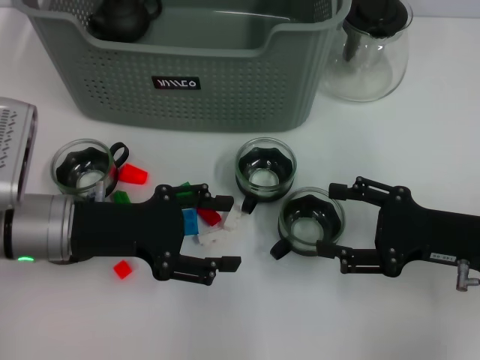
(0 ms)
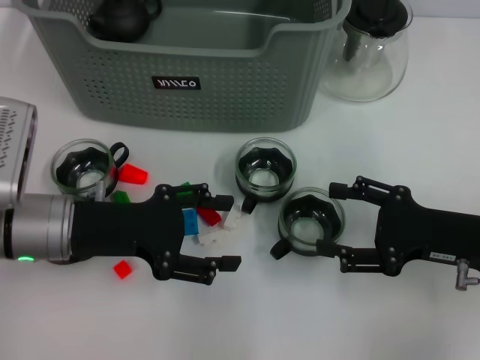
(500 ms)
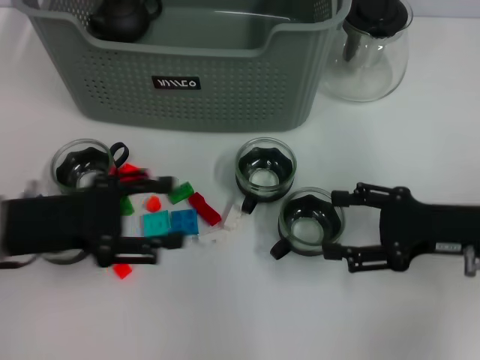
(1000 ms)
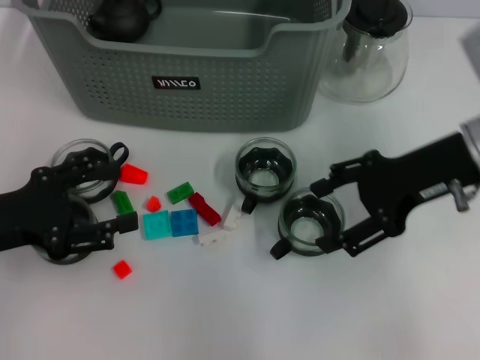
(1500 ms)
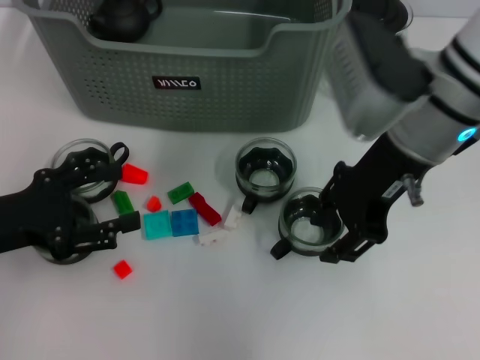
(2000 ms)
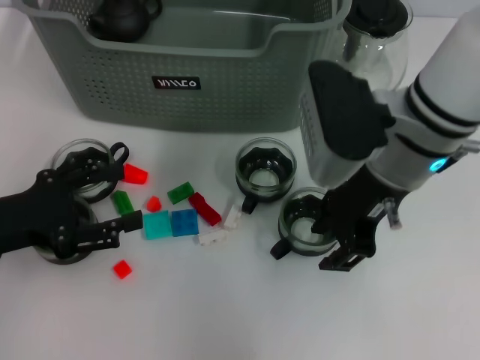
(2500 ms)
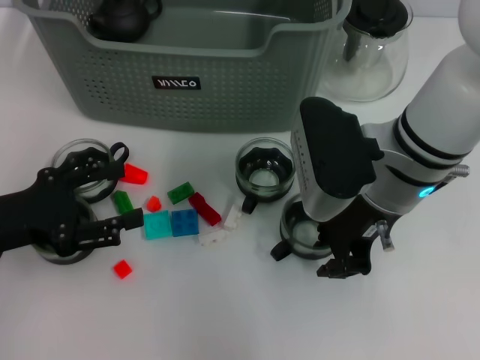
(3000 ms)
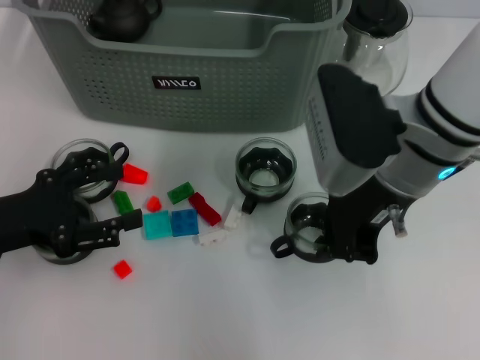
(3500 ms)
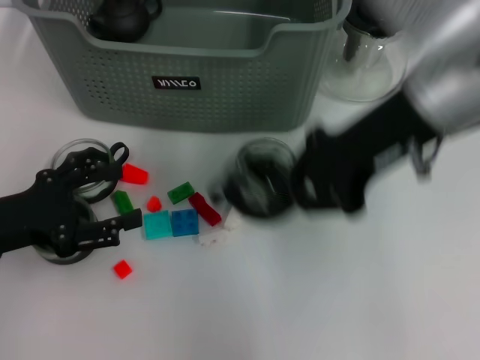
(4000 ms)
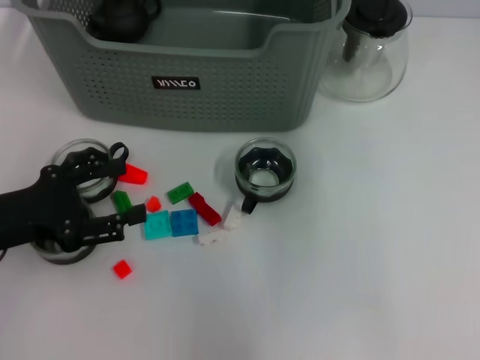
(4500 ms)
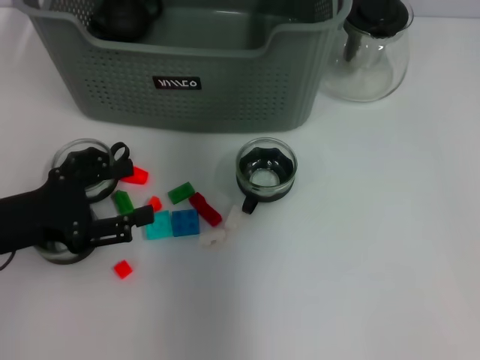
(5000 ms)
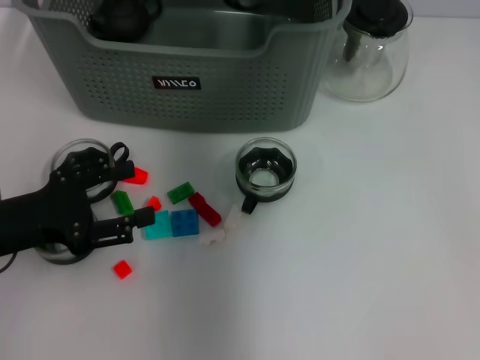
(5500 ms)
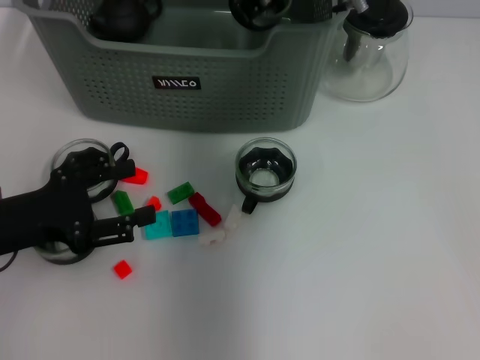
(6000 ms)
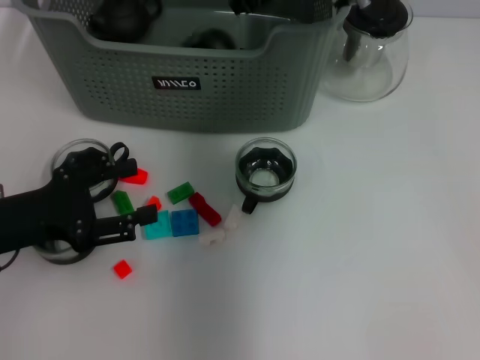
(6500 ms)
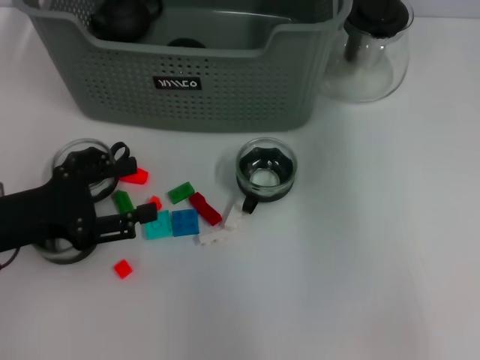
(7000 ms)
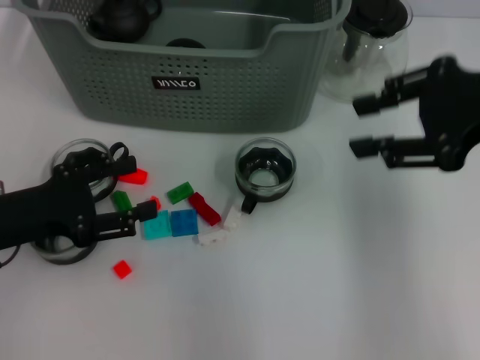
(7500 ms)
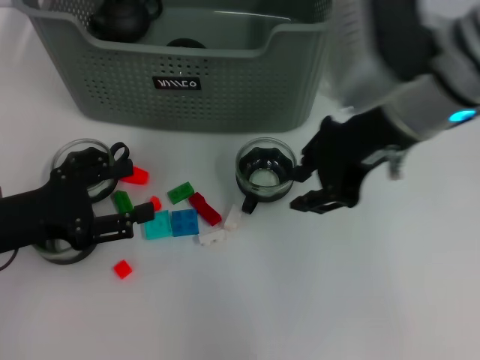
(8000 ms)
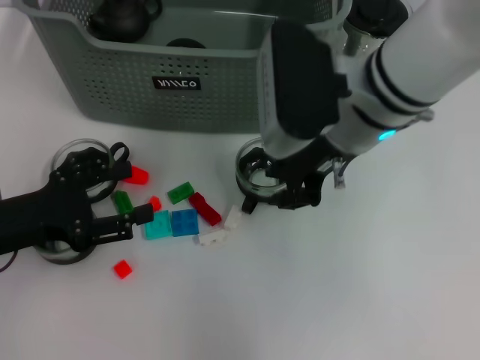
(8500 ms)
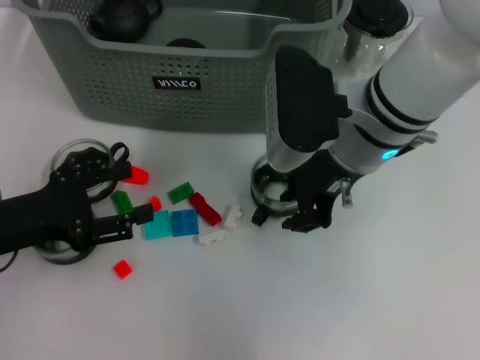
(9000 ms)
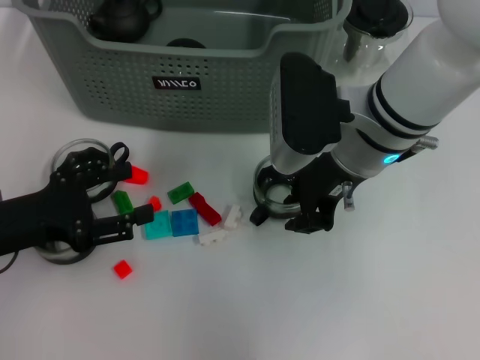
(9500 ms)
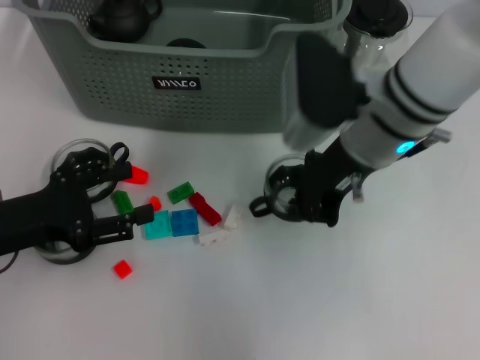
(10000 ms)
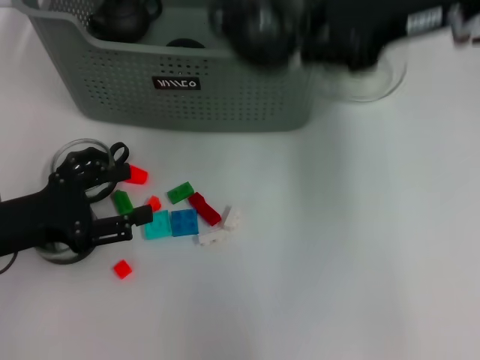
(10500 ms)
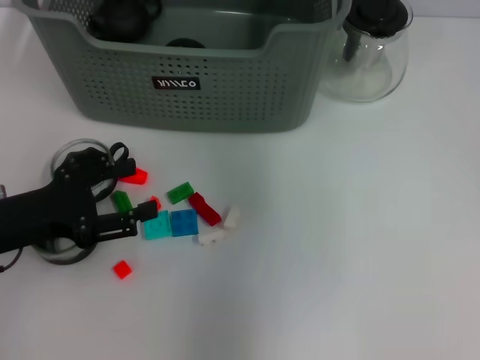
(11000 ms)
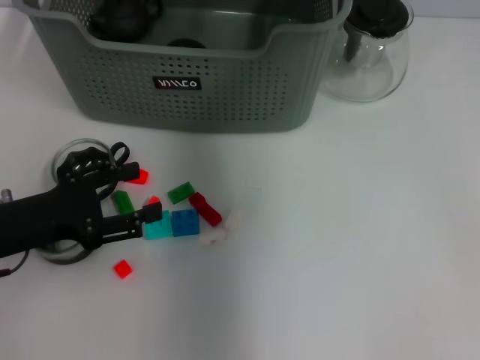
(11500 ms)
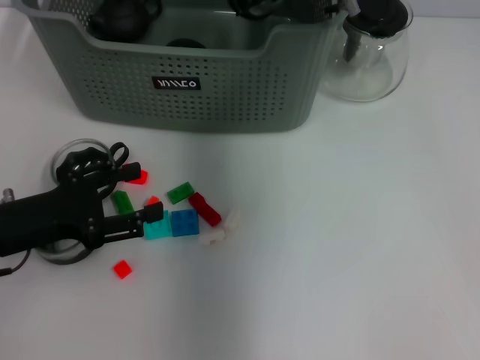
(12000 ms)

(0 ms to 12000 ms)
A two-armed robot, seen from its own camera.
Task of the whole recording: pick up the teacup on the table and place it into the storage bin, pick up the block on the table and place it into the storage bin.
Step, 0 ms - 3000 ms: Grasp the cup with right gripper.
Step, 3500 ms - 6500 ms: Place the cup in the storage box with right gripper.
Step, 7000 ms - 9500 ms: Grasp the cup with right gripper.
0 ms - 2000 ms: The left gripper travels to the left by about 10 cm. Meanwhile the right gripper travels upward, to the left and forward by some 20 cm.
2000 ms - 4000 ms: The right gripper closes.
4000 ms - 6000 ms: The right gripper travels forward and to the left by about 15 cm.
6000 ms - 8000 ms: The right gripper heads backward and to the right, covering some 15 cm, and opens.
8000 ms - 10000 ms: The right gripper is displaced downward by some 5 cm.
10000 ms - 12000 ms: The right gripper travels forward by approximately 10 cm, and reaches some 10 cm to the right, then returns.

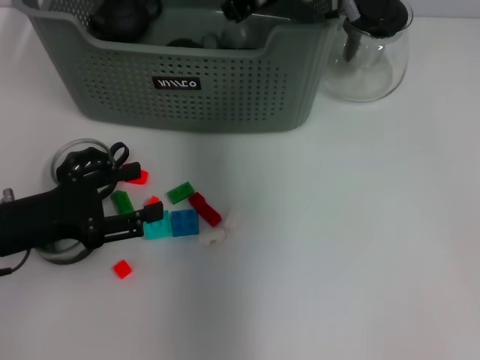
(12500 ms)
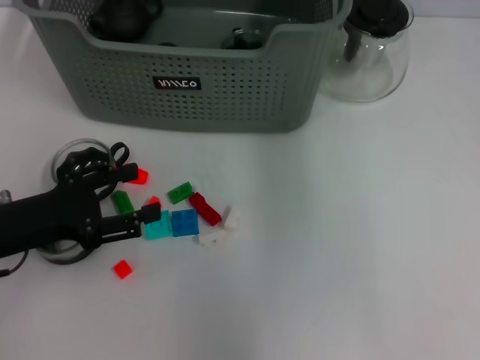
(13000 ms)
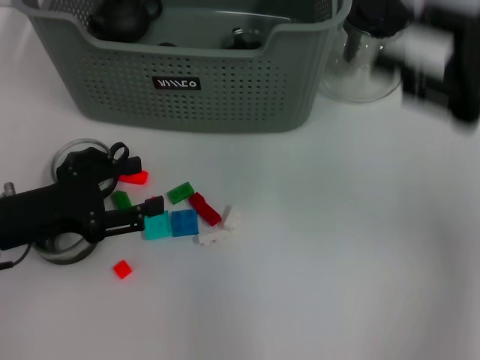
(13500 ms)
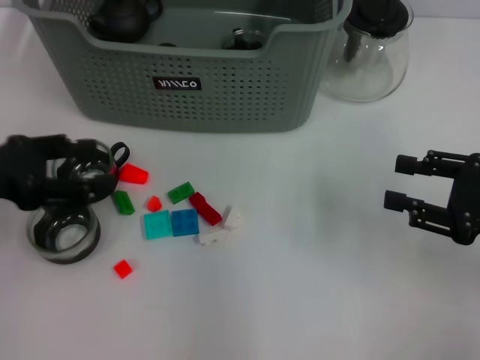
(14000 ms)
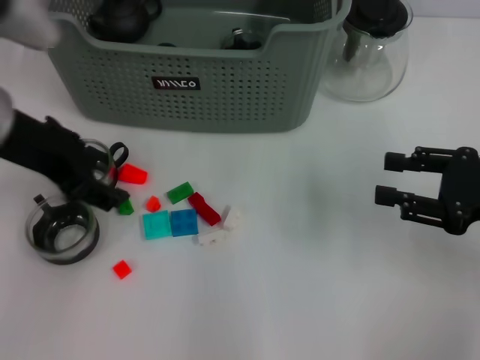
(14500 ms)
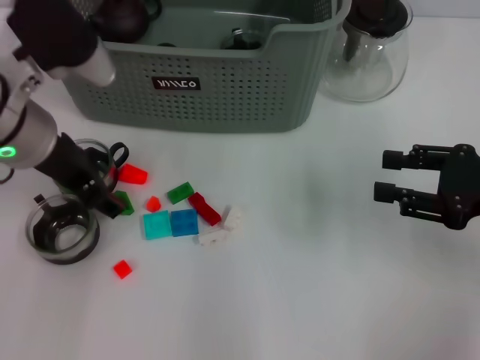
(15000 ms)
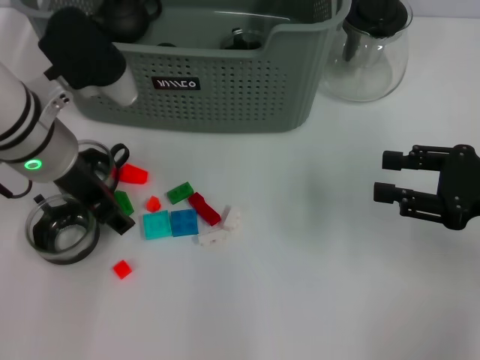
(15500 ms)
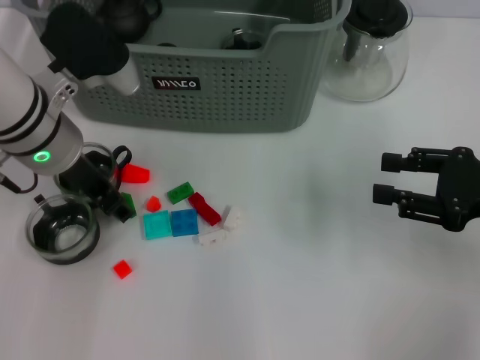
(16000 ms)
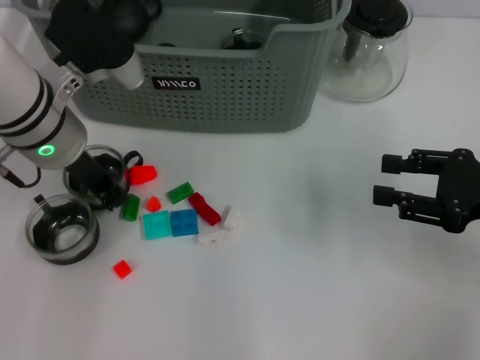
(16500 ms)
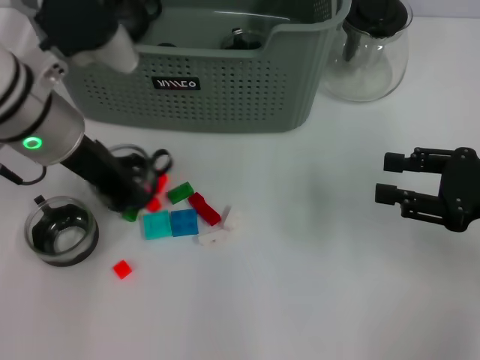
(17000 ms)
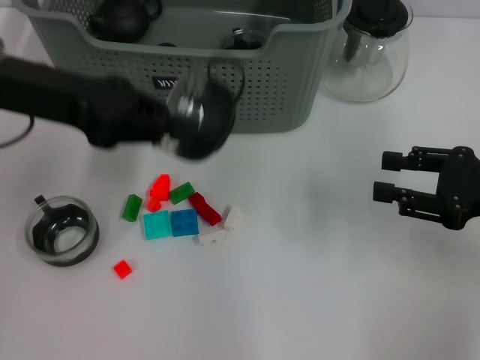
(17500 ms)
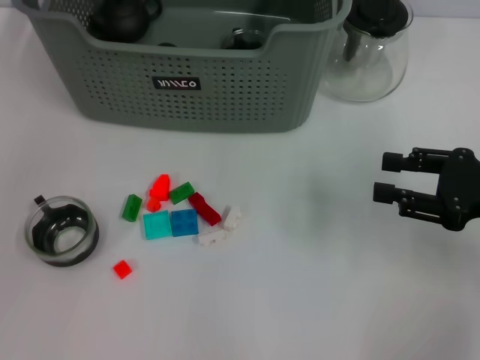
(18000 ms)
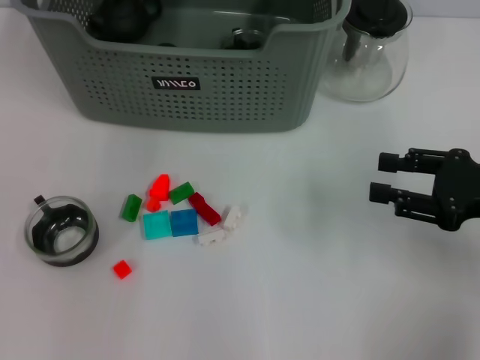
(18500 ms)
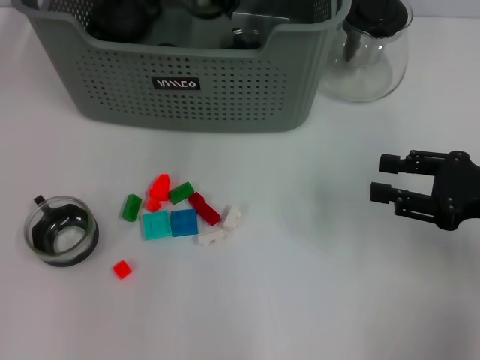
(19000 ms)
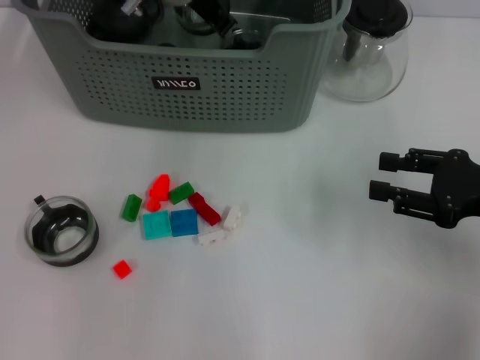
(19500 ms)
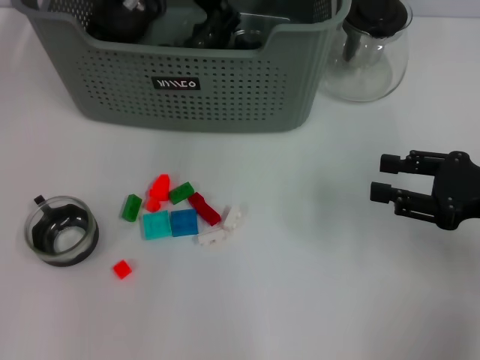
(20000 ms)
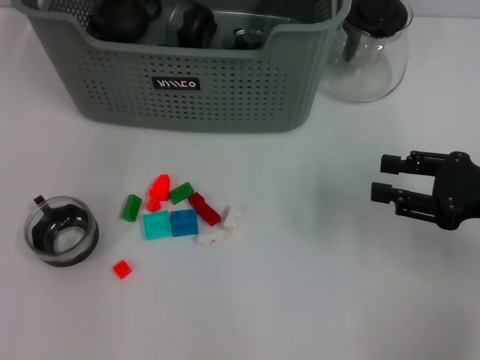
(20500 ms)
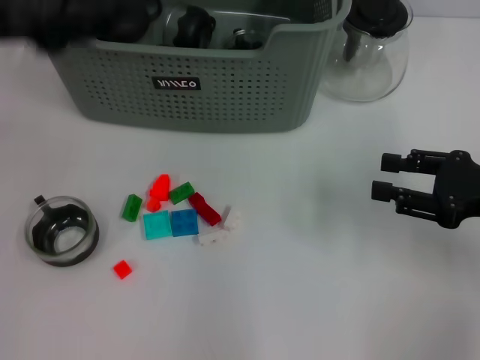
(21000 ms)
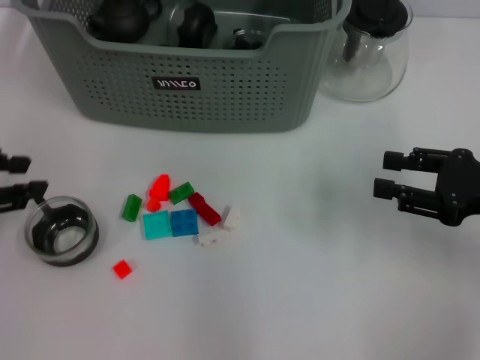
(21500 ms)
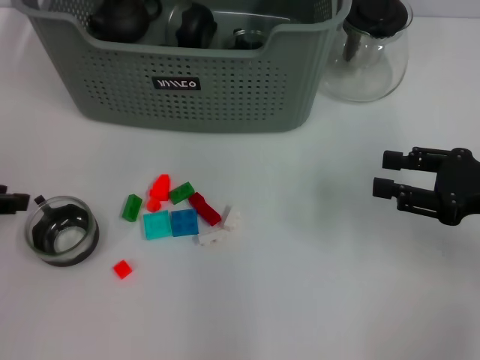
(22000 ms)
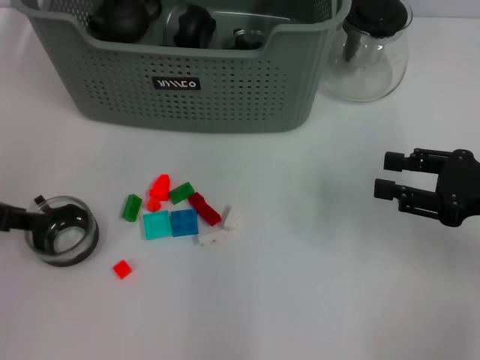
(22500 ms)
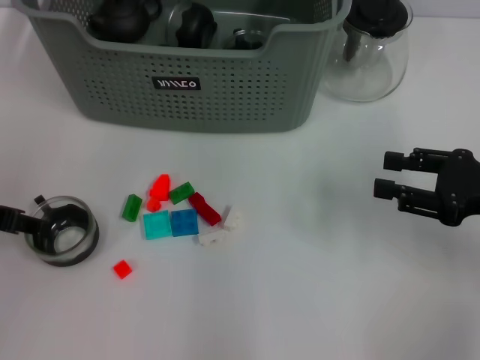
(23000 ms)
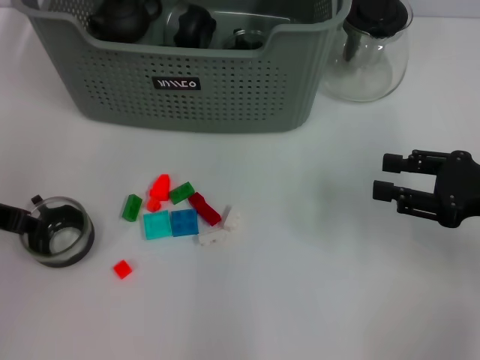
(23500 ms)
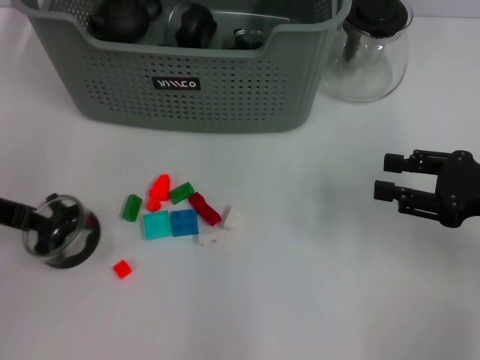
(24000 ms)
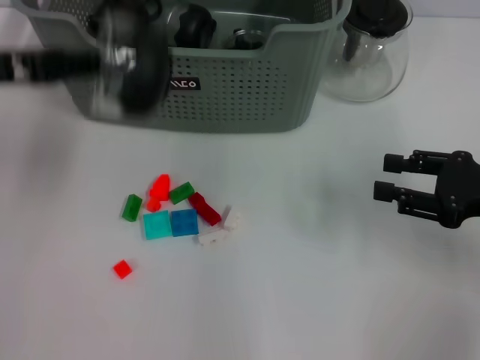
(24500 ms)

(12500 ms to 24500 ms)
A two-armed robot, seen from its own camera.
Task of the whole recording: pick up the teacup on the table and place it into the storage bin, pick up the block on the table and place it into the storage bin.
Step, 13000 ms - 16500 ms: Grasp the cup with left gripper.
Step, 17000 ms - 20000 ms: Place the cup in the storage box with left gripper.
Step, 20500 ms - 23500 ms: Grasp the cup with left gripper.
12500 ms - 14500 ms: The left gripper heads upward, to the right and forward, covering roughly 20 cm, while the right gripper goes roughly 30 cm to the right and backward, and opens up.
14500 ms - 16500 ms: The left gripper goes about 5 cm downward, and closes its fingers.
16500 ms - 18500 ms: The left gripper moves forward, upward and to the right, roughly 20 cm.
18500 ms - 20500 ms: The left gripper travels backward by about 5 cm, reaches approximately 10 cm downward, then returns, and opens up.
20500 ms - 22500 ms: The left gripper is displaced to the left, backward and downward by approximately 30 cm.
22500 ms - 24500 ms: The left gripper moves upward and forward, about 5 cm, and closes.

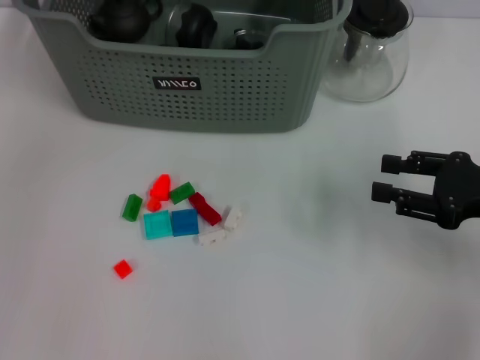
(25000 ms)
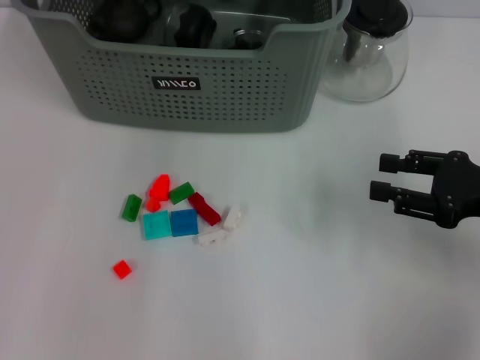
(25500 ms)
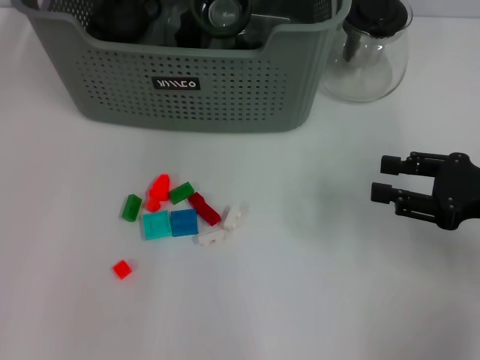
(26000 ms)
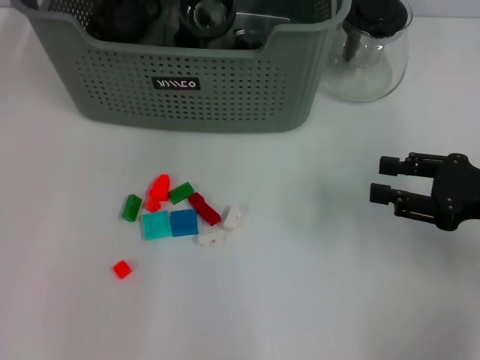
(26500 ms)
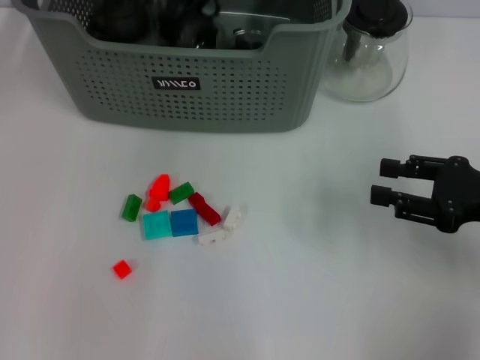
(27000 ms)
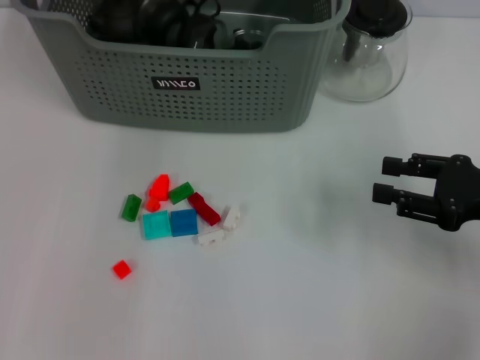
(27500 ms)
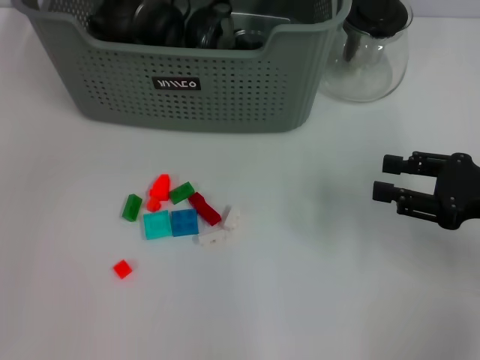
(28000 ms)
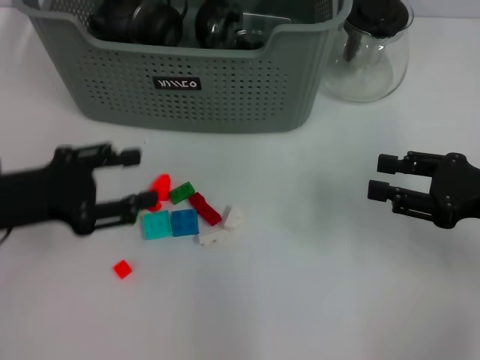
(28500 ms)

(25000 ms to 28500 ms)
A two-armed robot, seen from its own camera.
Task of the whole recording: pick up the teacup on the table and place it into the storage bin, pick up the block on the table and place it into the storage bin.
Step, 25000 ms - 27000 ms: Place the cup in the storage box with left gripper.
25000 ms - 27000 ms: The left gripper shifts roughly 15 cm to the right, downward and forward.
27000 ms - 28500 ms: The left gripper goes about 30 cm backward and to the left, and opens up.
